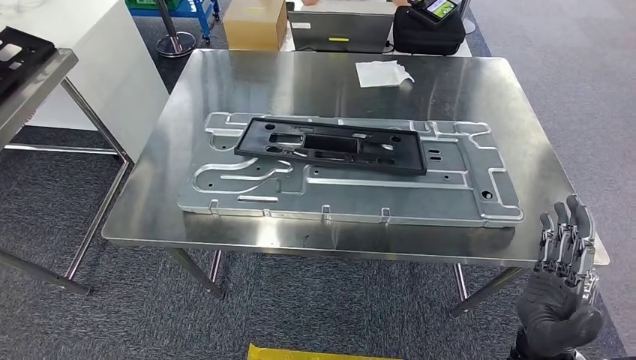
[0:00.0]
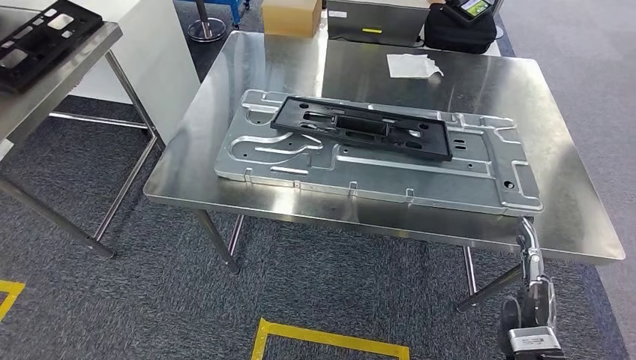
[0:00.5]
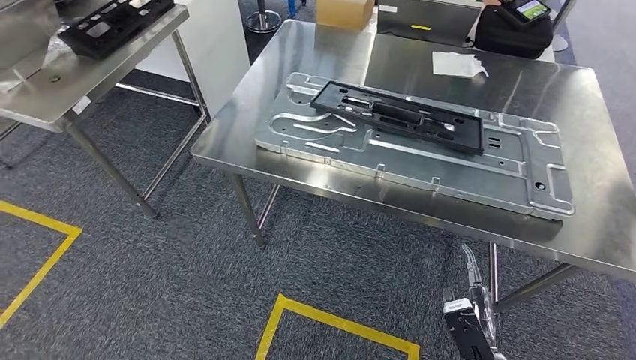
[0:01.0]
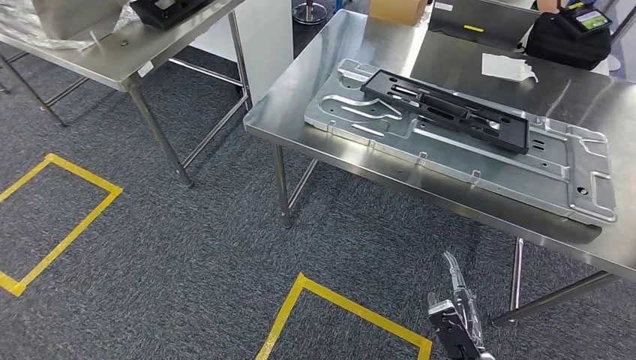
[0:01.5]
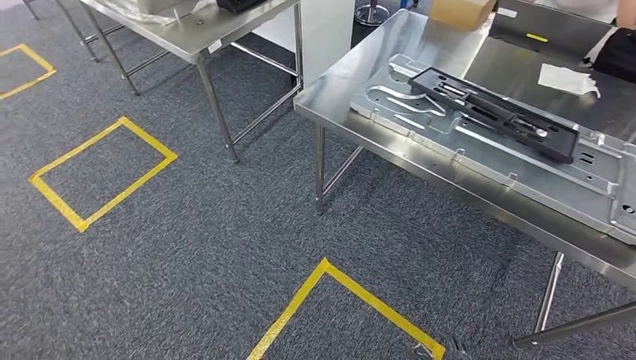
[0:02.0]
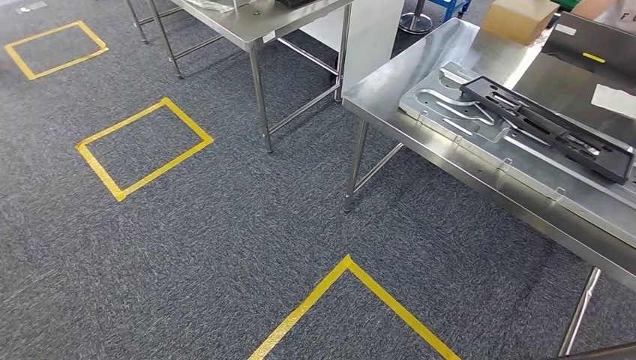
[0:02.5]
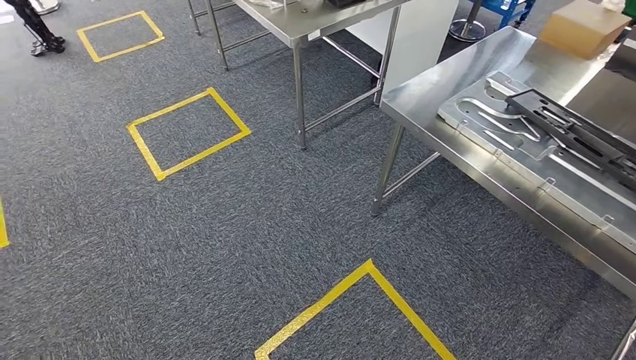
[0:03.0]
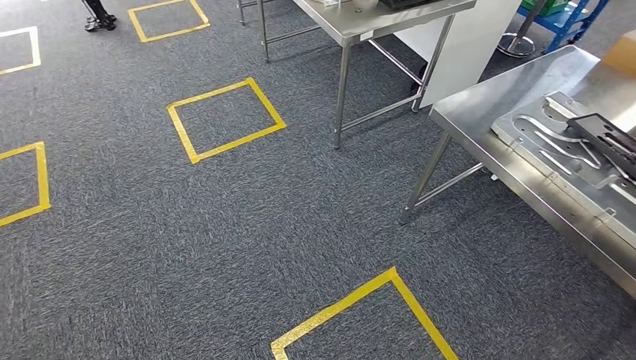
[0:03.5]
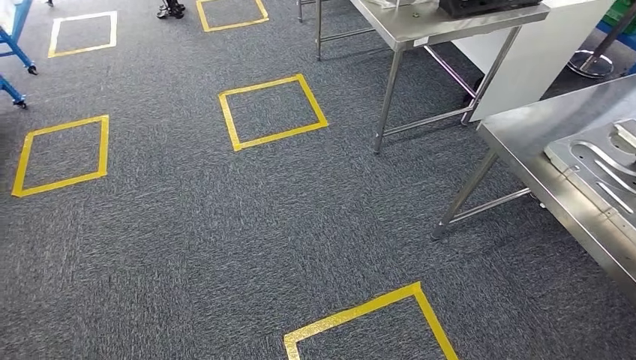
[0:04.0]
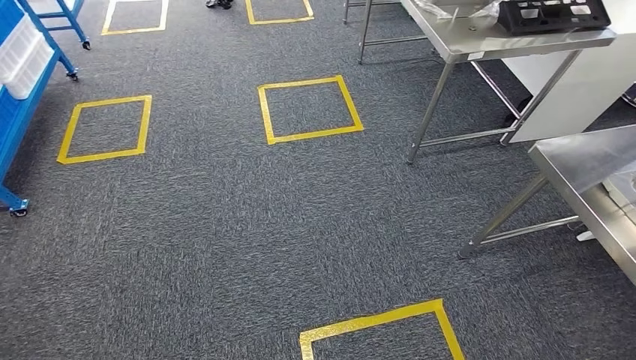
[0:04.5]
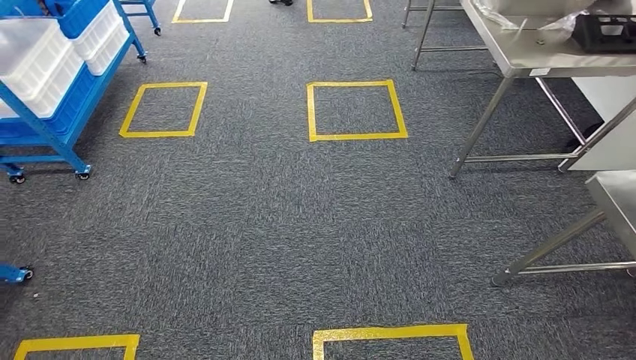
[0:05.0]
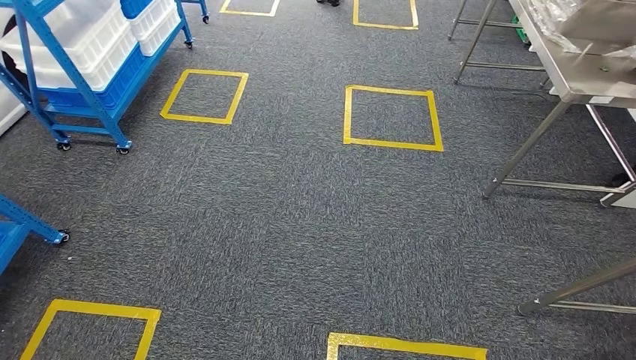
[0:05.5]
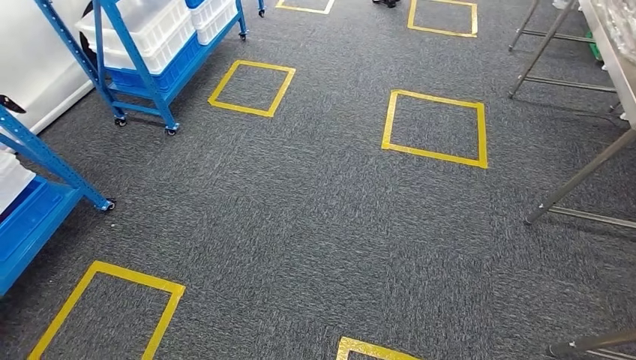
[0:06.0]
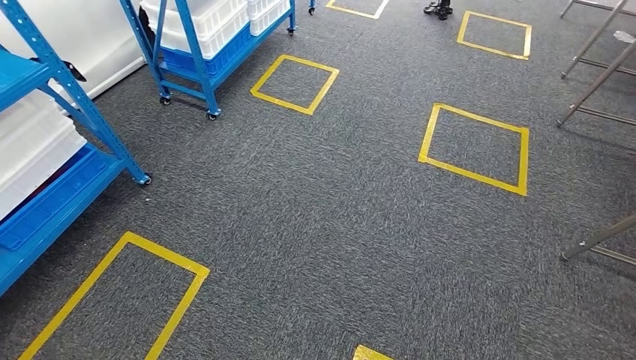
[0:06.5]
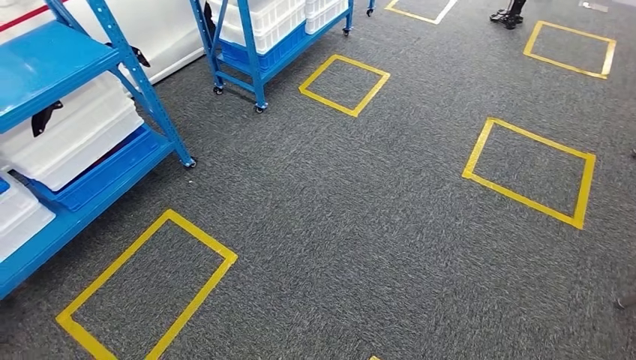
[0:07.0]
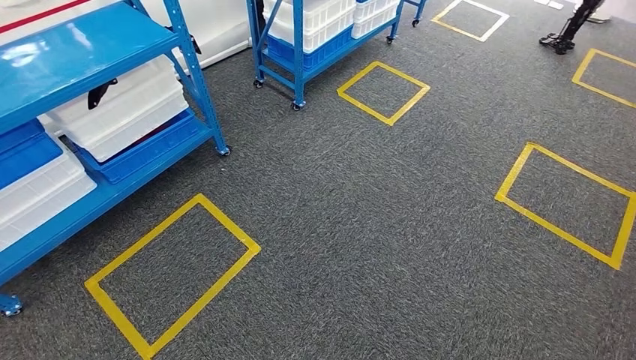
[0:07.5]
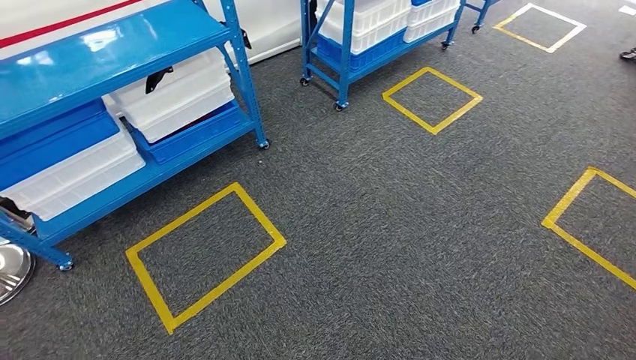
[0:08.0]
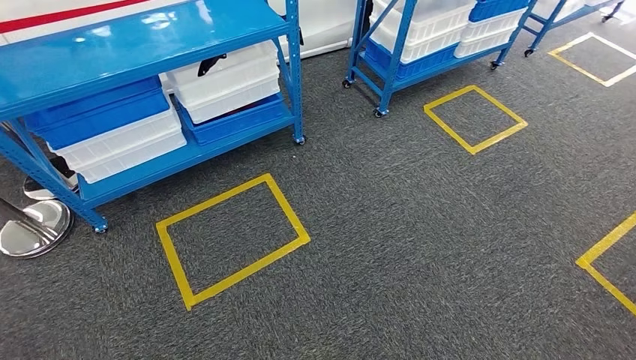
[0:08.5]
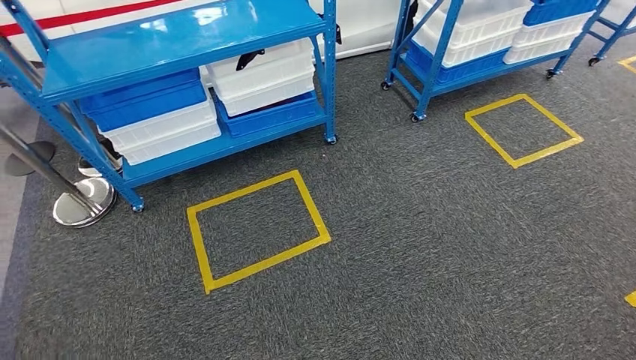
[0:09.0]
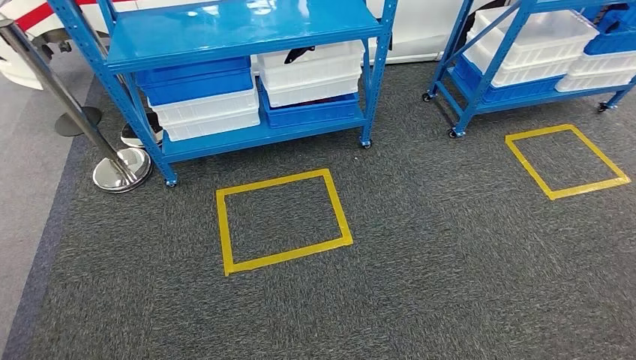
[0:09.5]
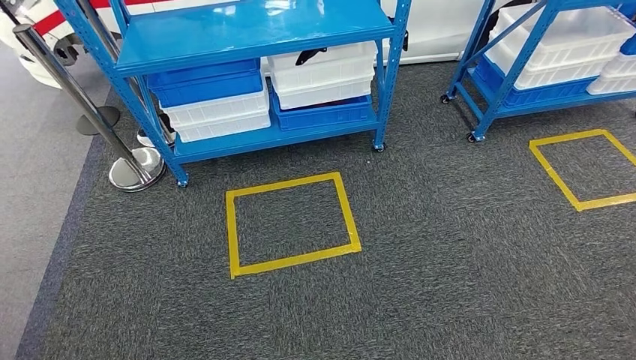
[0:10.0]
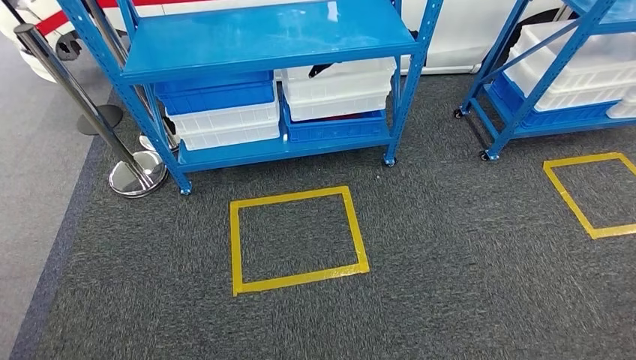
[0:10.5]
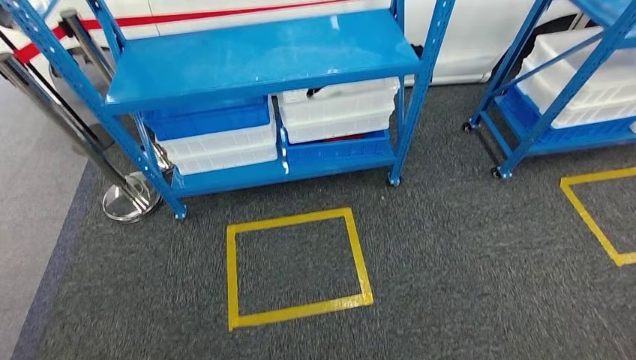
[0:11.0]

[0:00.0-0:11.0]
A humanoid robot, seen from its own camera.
Step, 0:03.0 to 0:11.0: Return to the initial position at the shelf.
